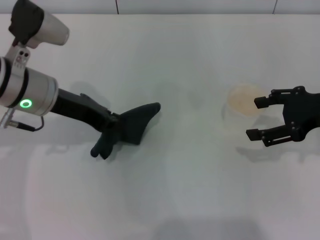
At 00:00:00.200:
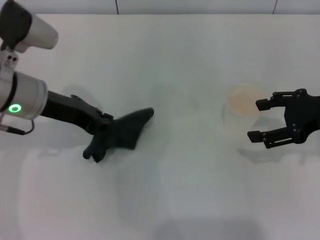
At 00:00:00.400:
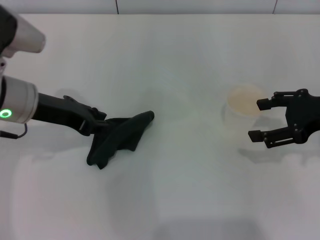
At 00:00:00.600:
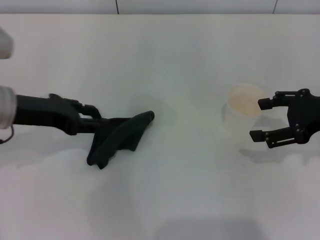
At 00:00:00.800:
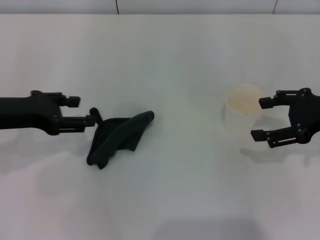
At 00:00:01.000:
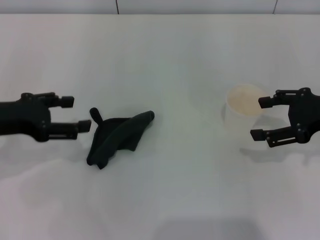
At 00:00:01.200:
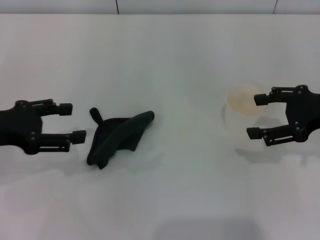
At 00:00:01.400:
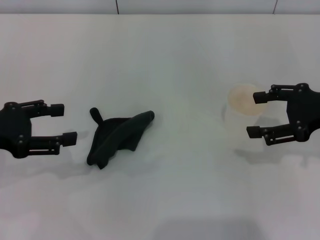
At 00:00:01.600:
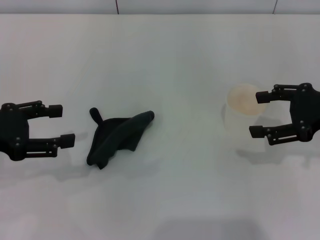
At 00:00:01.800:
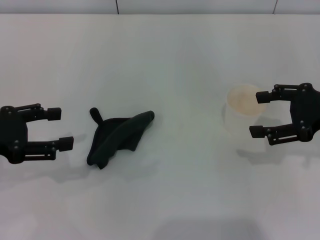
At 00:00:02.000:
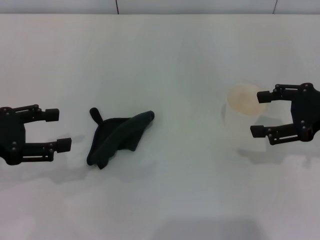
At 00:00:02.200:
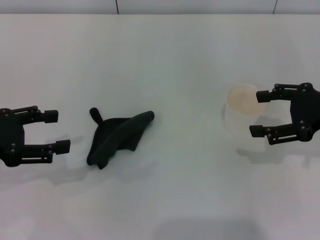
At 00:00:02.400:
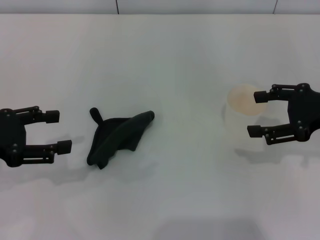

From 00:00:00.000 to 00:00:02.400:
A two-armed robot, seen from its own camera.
Step, from 00:00:00.000 to 00:00:01.000: Place the rag on the table with the left gripper.
From 00:00:00.000 to 00:00:01.200: The left gripper is displaced to the left and backward by some 15 cm, and opens.
From 00:00:01.200 to 00:00:02.400: The grippers move only a little.
